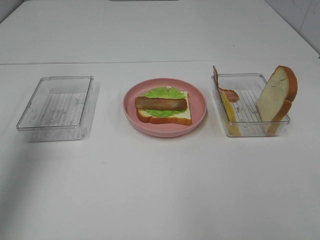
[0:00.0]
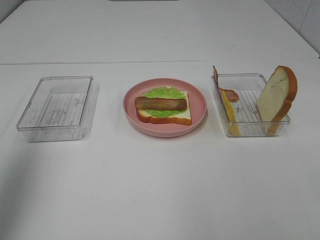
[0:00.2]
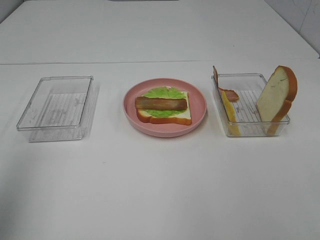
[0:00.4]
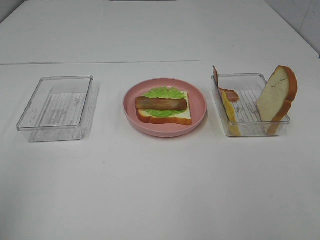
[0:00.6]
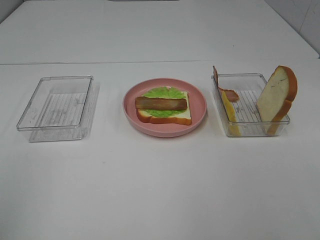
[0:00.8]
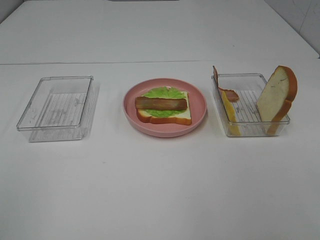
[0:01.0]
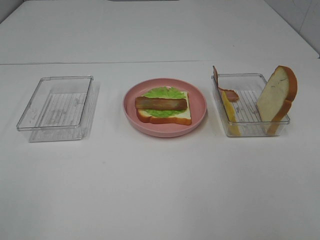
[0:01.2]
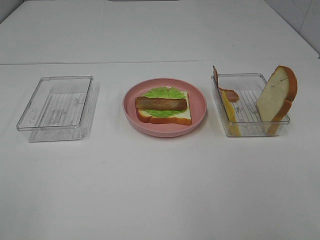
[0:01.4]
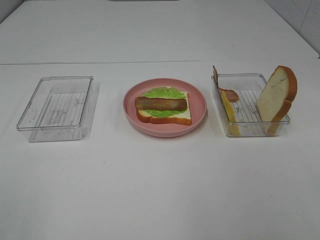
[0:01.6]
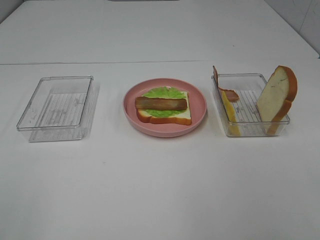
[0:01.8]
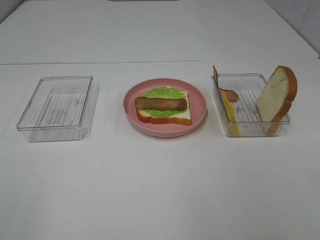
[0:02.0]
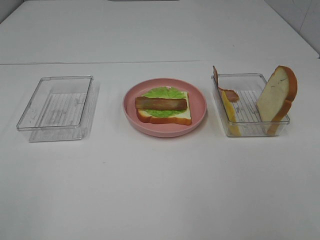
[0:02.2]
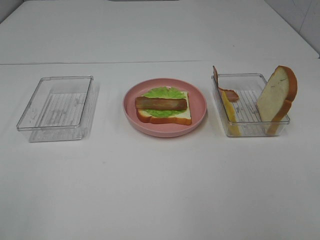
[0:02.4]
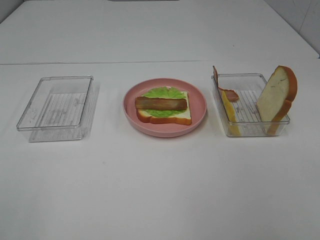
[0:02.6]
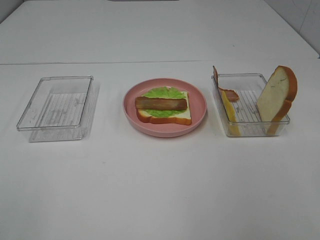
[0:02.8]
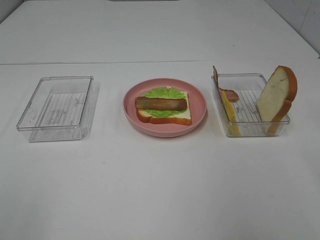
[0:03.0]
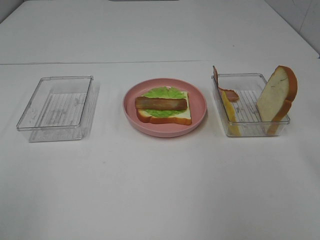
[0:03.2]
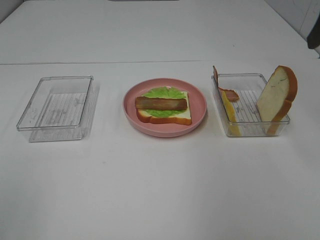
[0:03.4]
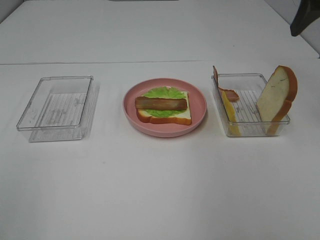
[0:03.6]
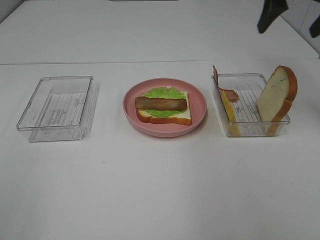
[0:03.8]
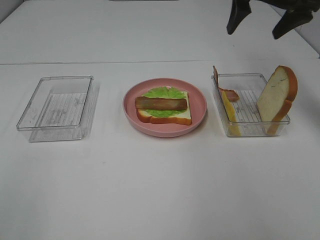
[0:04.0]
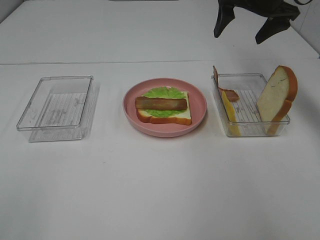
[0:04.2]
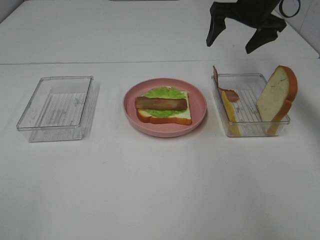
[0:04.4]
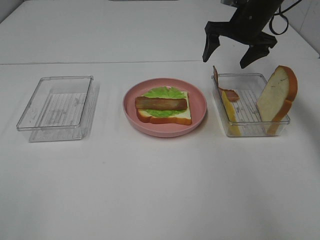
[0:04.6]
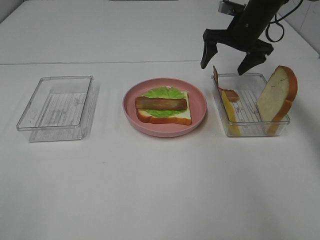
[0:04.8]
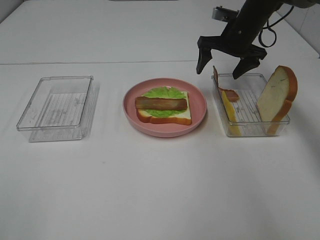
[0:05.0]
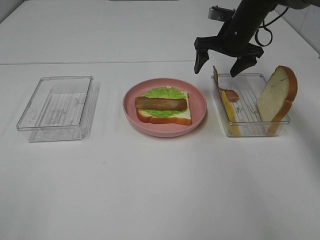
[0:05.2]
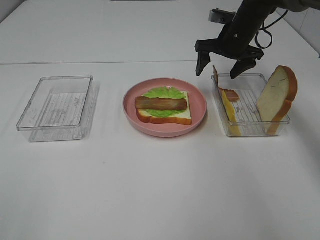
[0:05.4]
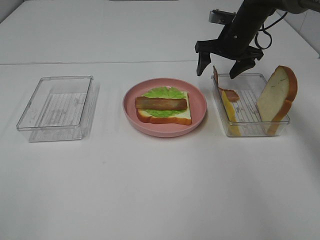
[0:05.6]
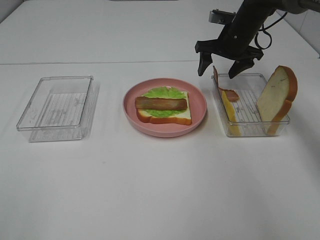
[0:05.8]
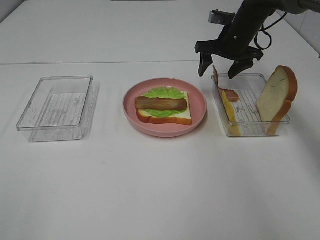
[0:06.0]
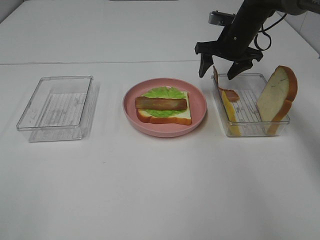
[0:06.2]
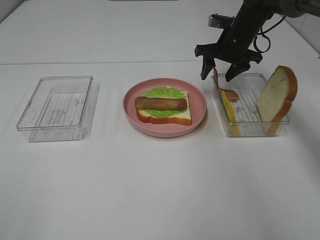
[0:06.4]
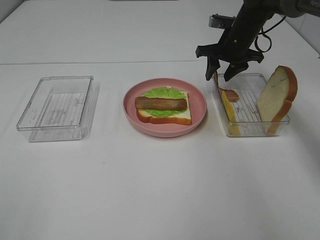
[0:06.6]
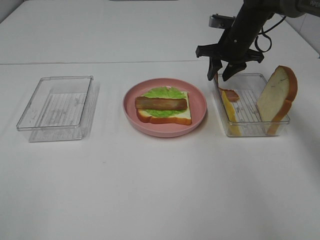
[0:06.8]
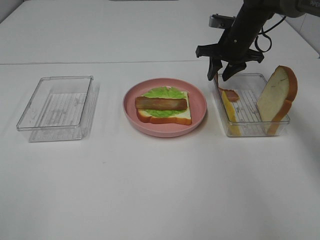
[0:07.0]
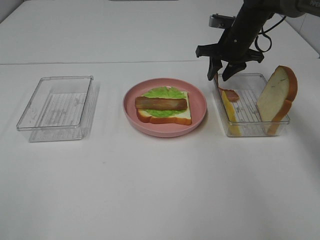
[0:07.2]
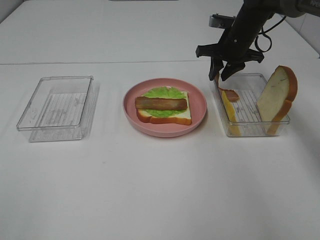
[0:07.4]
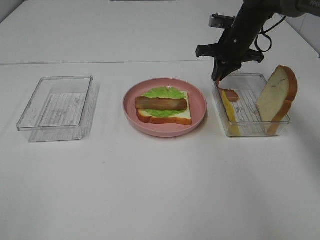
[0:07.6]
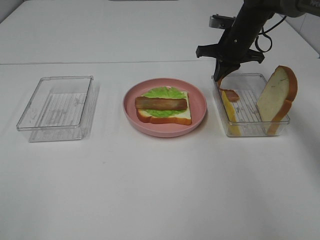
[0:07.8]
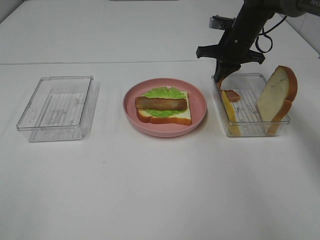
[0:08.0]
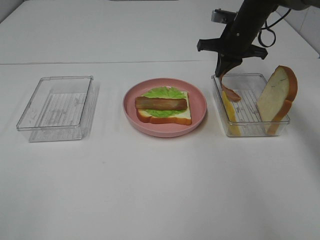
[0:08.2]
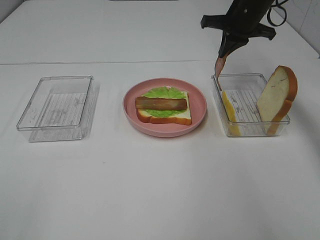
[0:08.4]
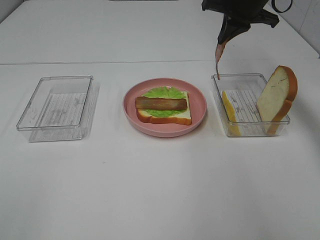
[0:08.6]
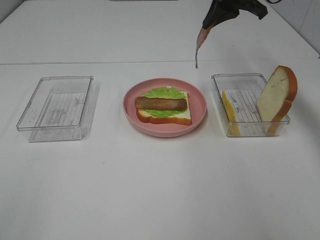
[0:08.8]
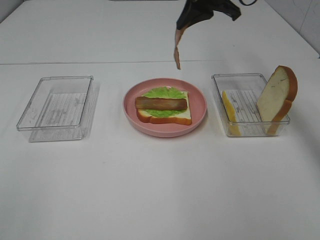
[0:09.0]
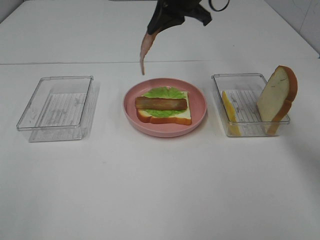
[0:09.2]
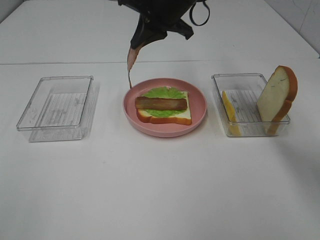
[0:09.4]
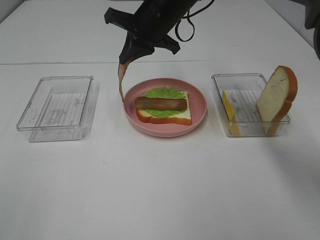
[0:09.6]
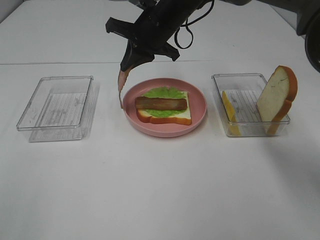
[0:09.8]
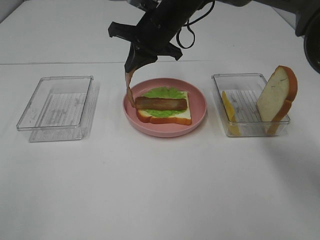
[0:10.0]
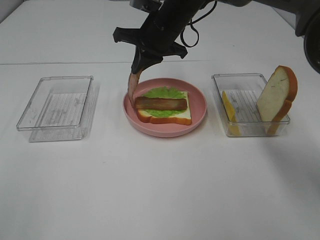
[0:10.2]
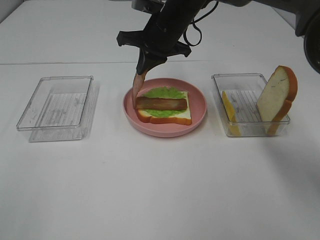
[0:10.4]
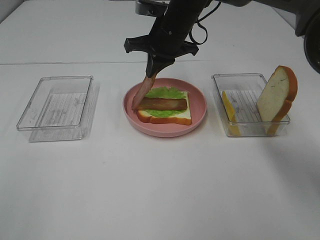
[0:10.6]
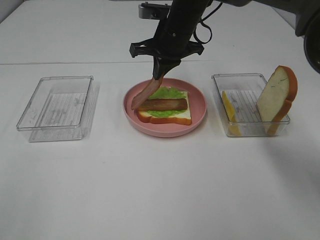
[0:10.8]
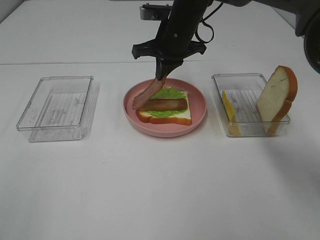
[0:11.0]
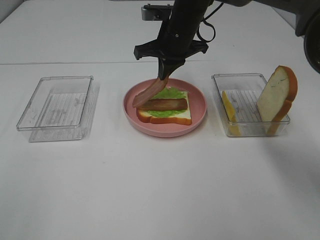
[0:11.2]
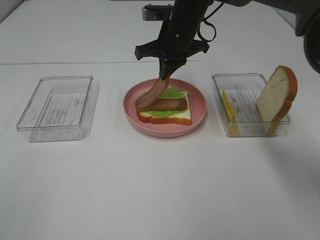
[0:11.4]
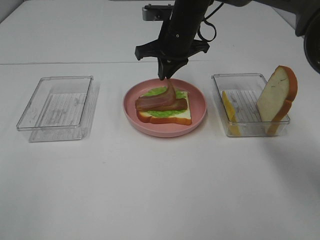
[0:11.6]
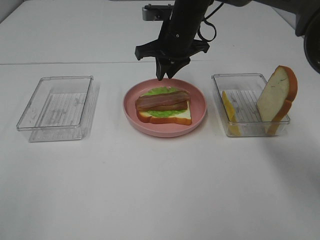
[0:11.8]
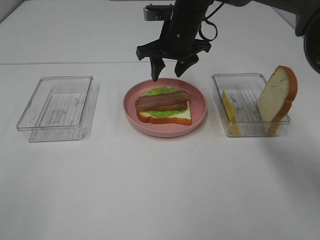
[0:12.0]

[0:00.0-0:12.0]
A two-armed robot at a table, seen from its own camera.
Task of the whole recording: Make sandwiches.
Step, 0:00.0 to 0:07.8: Right hand:grab the bacon.
Step, 0:08.0 to 0:12.0: Right hand:place bacon on bacon.
0:00.0 to 0:01.6: The left gripper heads backward, covering approximately 30 cm.
0:03.0 to 0:04.4: The right gripper goes about 35 cm forward.
0:04.4 to 0:06.0: The right gripper moves downward, roughly 10 cm.
0:06.0 to 0:07.6: The right gripper closes.
0:07.6 to 0:09.0: The right gripper shifts roughly 15 cm upward and to the left.
0:09.0 to 0:10.4: The right gripper is displaced downward and to the left by some 10 cm.
0:10.4 to 0:12.0: The right gripper opens.

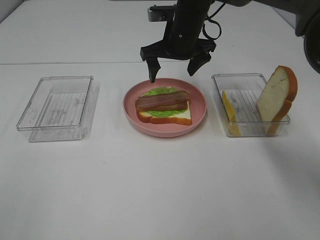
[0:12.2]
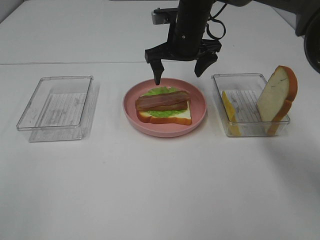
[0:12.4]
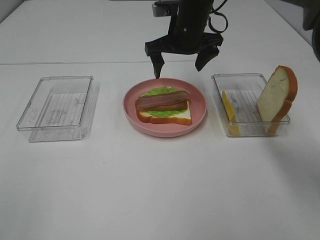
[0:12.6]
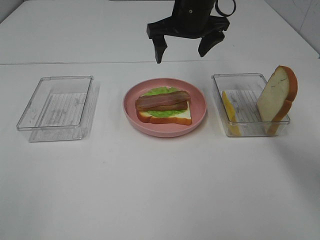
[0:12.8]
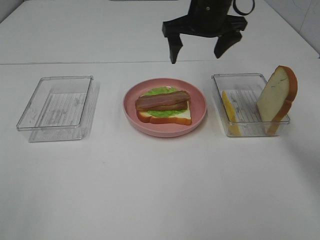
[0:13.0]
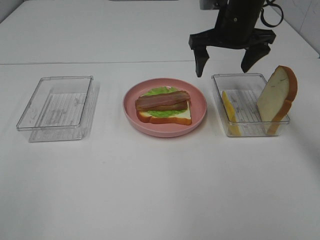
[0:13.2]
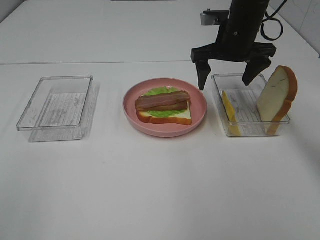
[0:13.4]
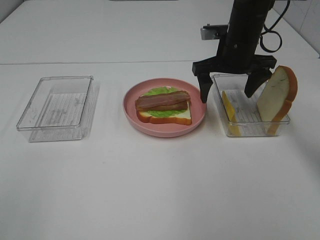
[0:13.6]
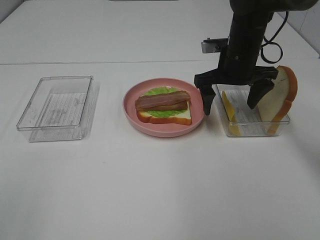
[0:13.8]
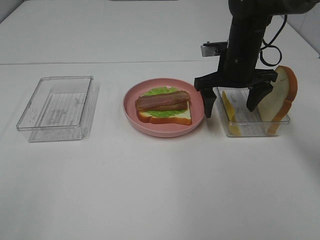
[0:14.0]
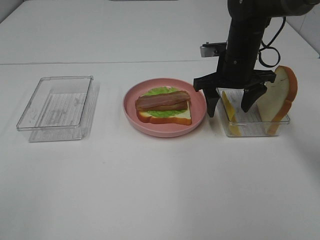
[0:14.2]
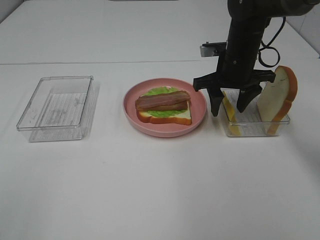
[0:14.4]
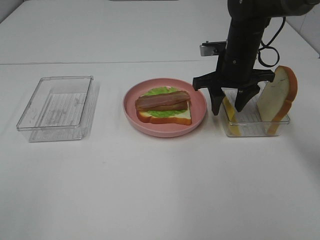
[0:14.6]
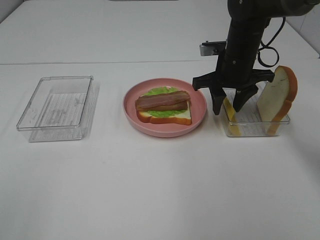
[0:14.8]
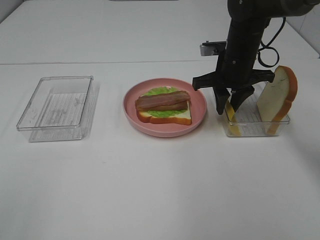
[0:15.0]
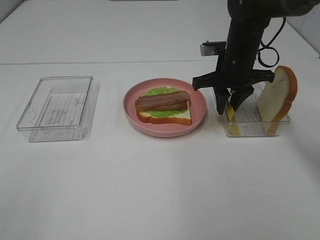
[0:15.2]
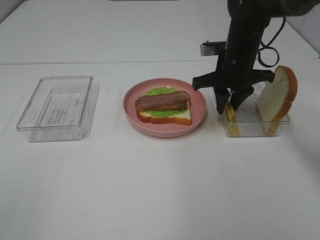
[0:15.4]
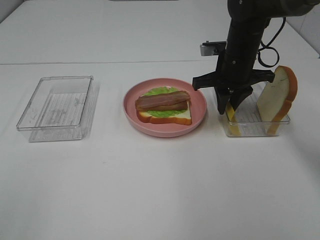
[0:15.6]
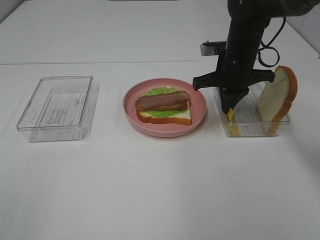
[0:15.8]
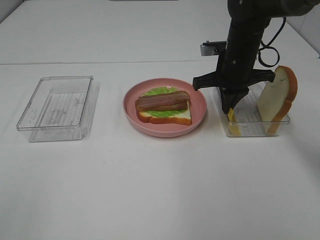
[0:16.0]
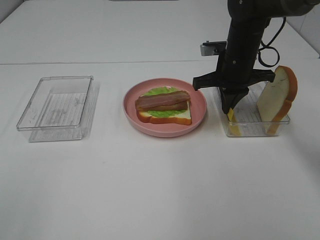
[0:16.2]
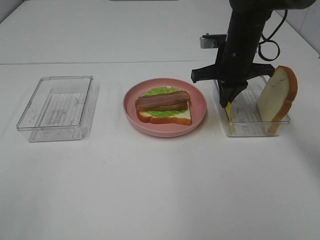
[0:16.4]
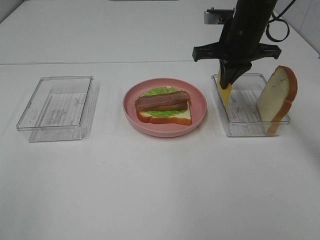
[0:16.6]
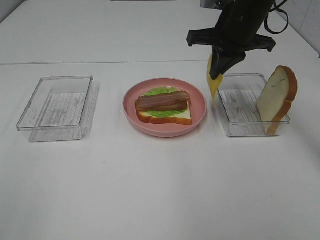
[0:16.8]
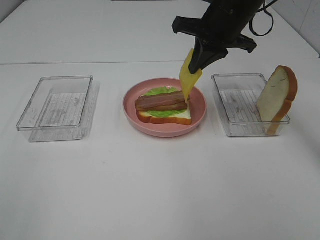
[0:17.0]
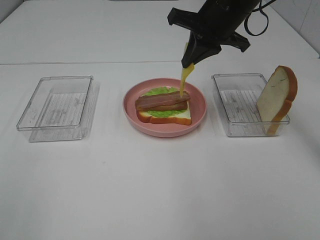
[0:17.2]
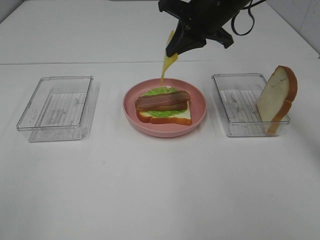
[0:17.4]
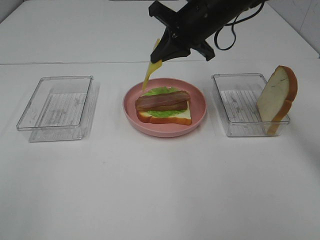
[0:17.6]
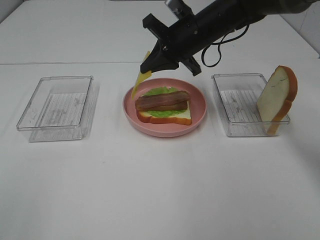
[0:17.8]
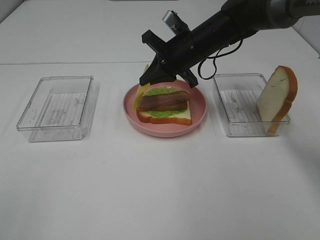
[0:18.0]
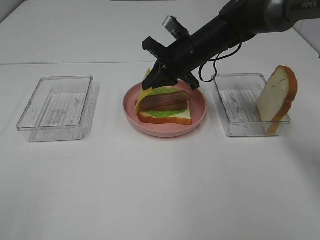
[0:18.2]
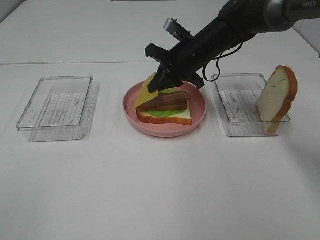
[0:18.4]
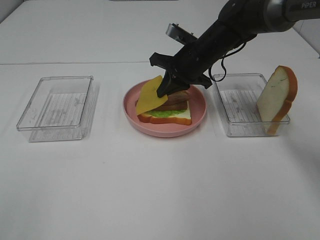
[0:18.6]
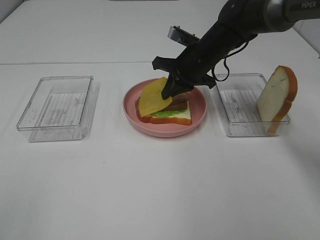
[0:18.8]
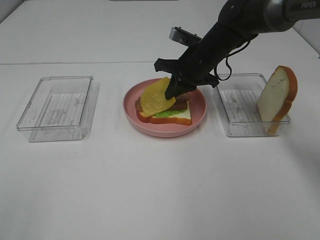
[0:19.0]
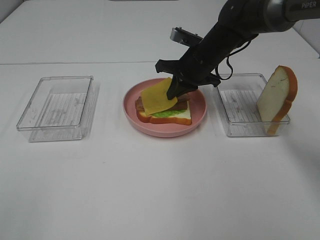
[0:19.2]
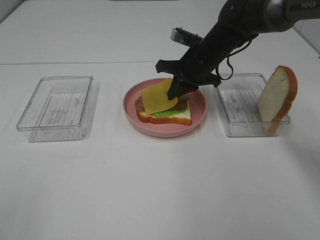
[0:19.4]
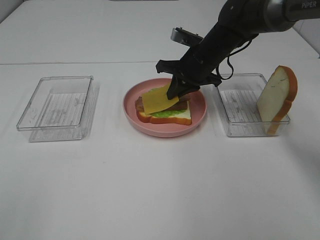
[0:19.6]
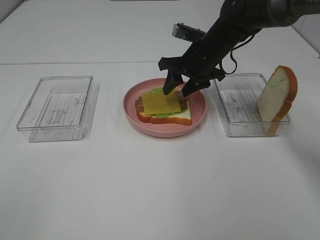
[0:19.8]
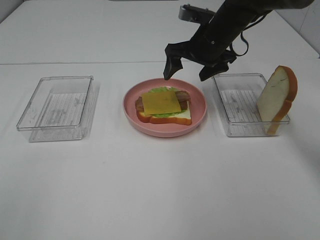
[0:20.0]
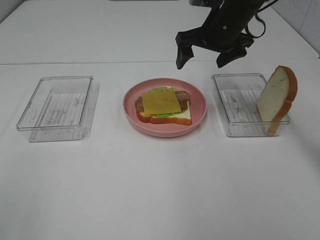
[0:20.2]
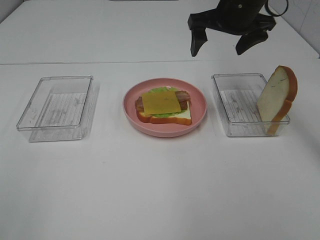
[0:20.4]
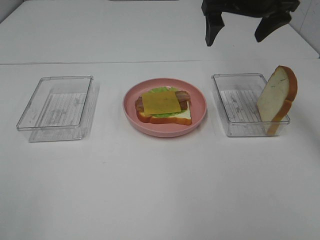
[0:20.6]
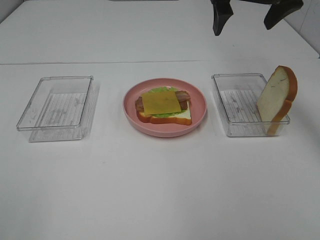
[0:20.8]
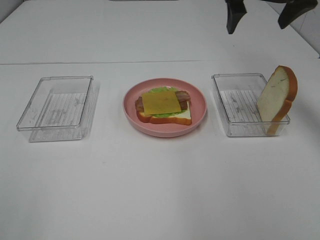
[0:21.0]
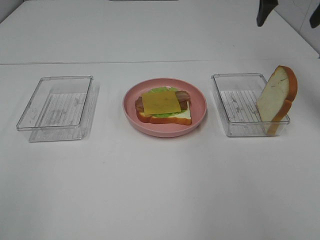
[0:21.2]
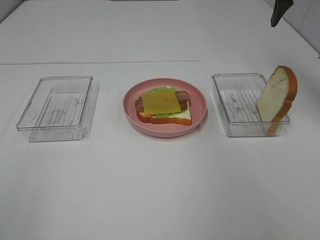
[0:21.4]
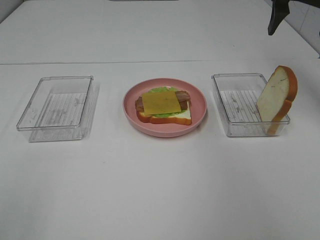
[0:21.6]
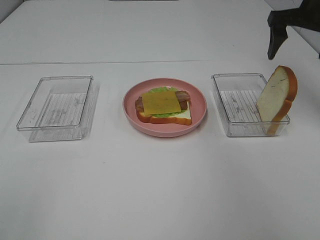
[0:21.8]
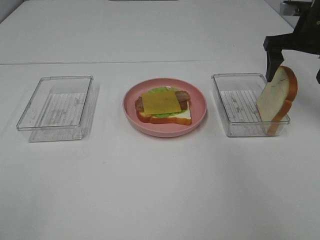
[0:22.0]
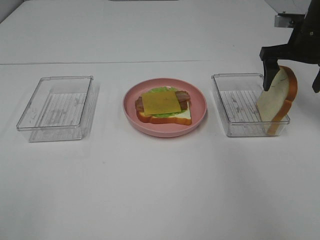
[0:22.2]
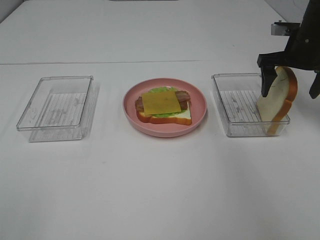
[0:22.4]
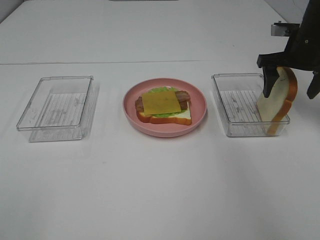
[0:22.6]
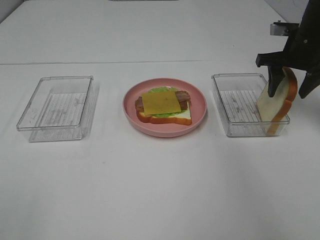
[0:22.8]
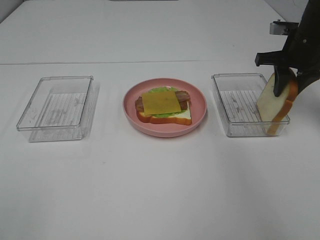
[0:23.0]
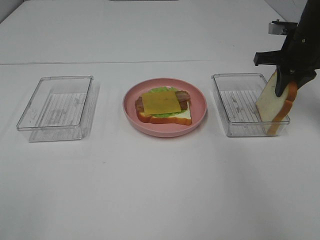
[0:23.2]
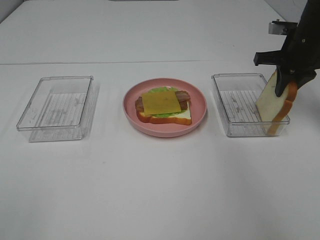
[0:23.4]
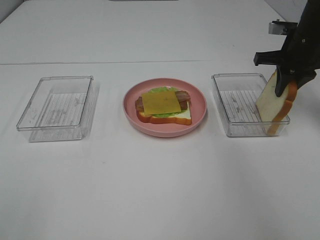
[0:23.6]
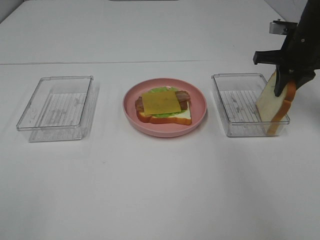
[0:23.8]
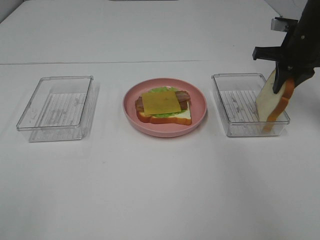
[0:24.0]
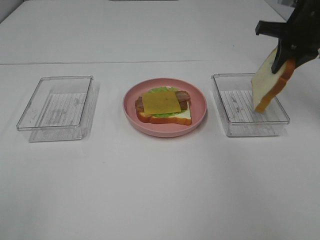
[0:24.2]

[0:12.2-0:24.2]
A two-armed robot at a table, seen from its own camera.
Task of the whole recording: Make sandwiches.
Step, 0:12.2 to 0:16.0: Right hand:grab the cheese slice.
Step, 0:16.2 to 0:19.8: Right hand:place the cheese slice on top of the bacon.
Step, 0:20.0 to 0:23.4: Right hand:grab the bread slice.
0:12.2 to 0:13.8: The right gripper is displaced to the right by about 10 cm.
0:13.8 to 0:15.2: The right gripper closes up.
0:15.2 to 0:16.6: The right gripper heads upward, covering approximately 5 cm.
0:16.6 to 0:18.2: The right gripper goes roughly 10 cm to the left and downward.
0:18.2 to 0:19.8: The right gripper opens its fingers.
0:19.8 to 0:21.2: The right gripper travels upward and to the right by approximately 20 cm, and opens up.
0:21.2 to 0:22.6: The right gripper heads downward, covering approximately 15 cm.
0:22.6 to 0:24.2: The right gripper heads upward, covering some 5 cm, and closes.
